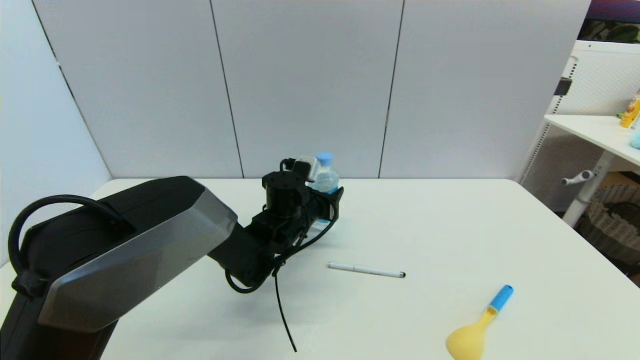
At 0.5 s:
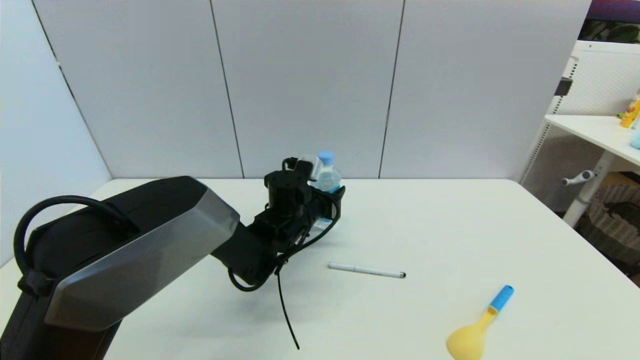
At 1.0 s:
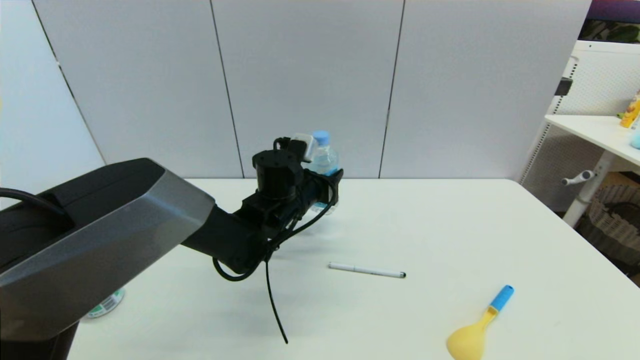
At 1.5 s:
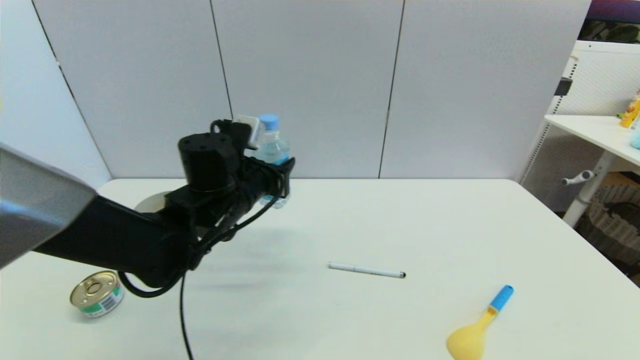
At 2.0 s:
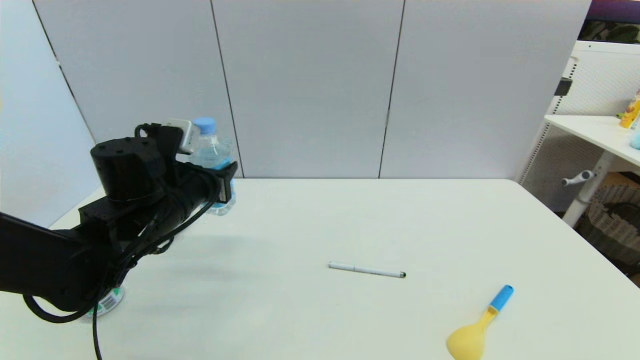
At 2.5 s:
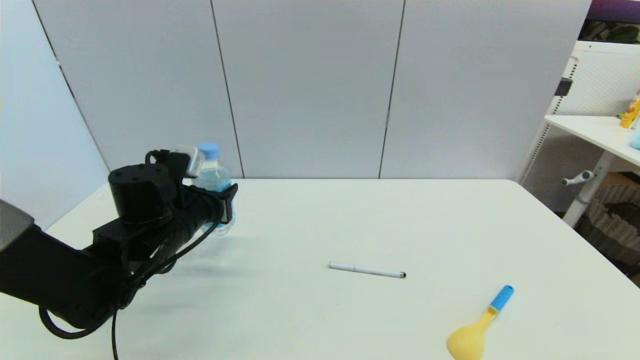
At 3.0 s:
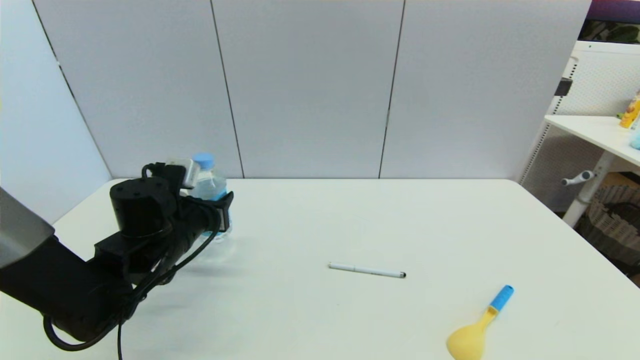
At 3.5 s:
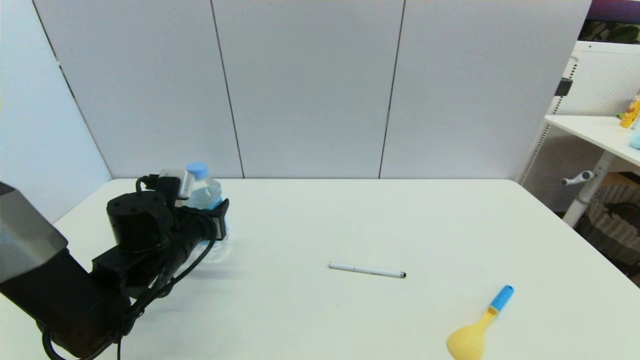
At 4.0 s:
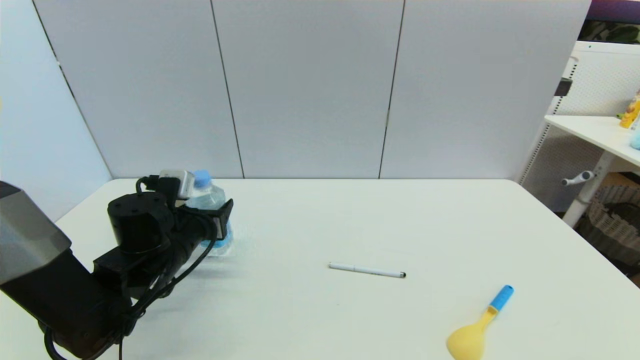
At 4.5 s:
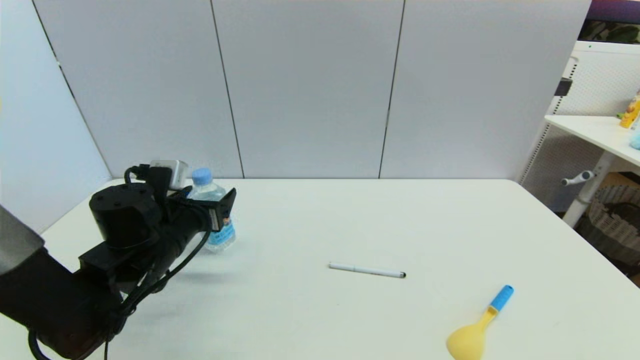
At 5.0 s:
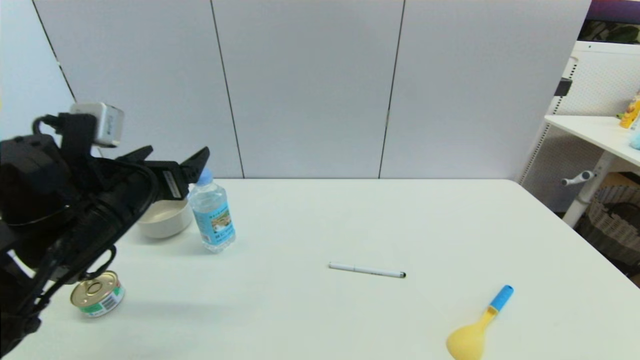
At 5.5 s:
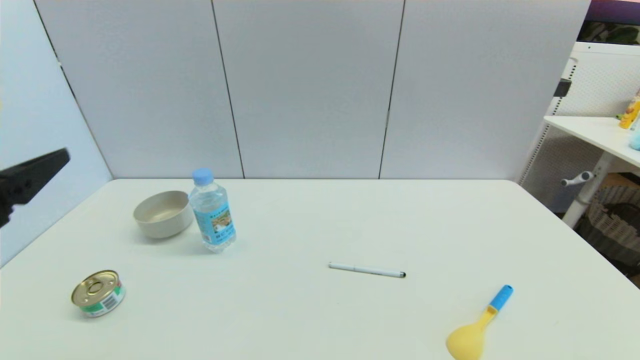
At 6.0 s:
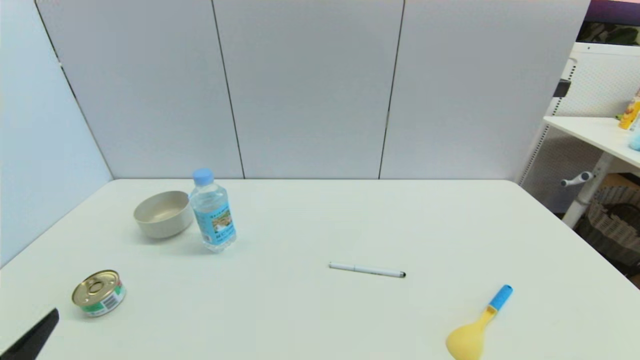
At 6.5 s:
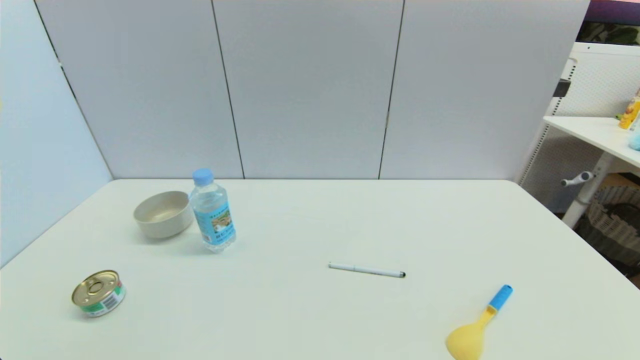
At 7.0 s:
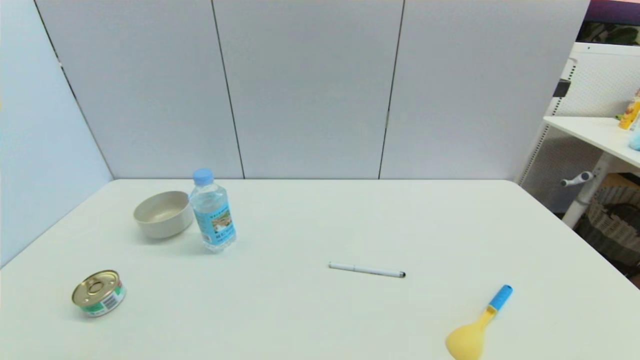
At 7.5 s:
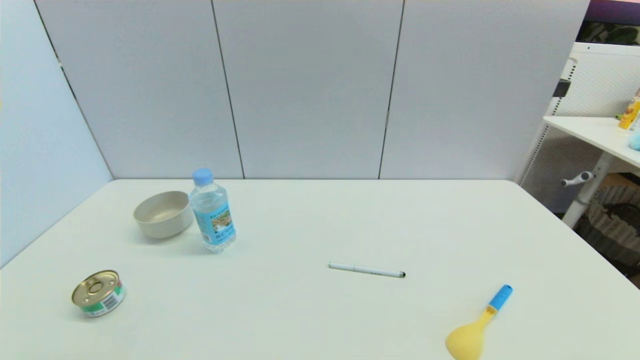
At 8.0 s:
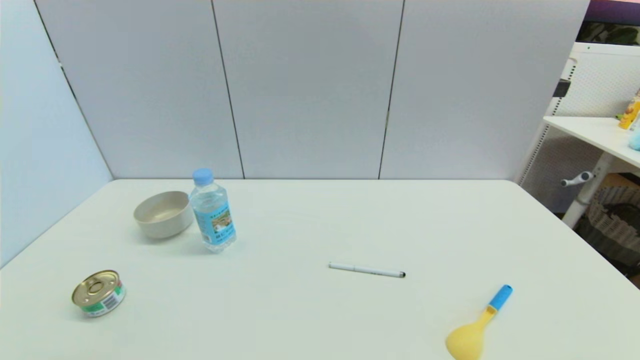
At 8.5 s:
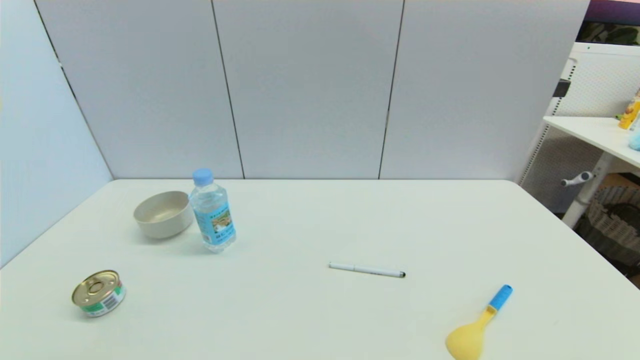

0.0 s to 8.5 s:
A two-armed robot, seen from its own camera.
Step, 0.5 to 4.0 s: Place the soda water on the table with left gripper.
0.0 to 2.0 s: The left gripper travels to the left, upward and backward by roughly 20 cm.
2.0 to 4.0 s: The left gripper shifts about 5 cm downward, and opens up.
4.0 to 6.5 s: The left gripper travels backward by roughly 30 cm, and opens up.
